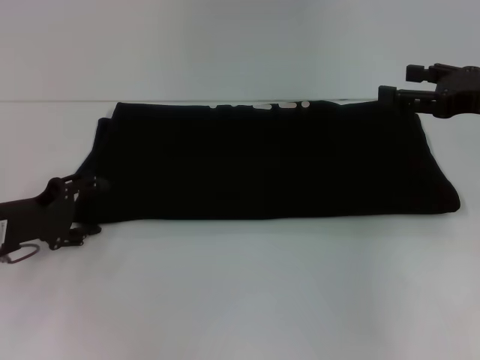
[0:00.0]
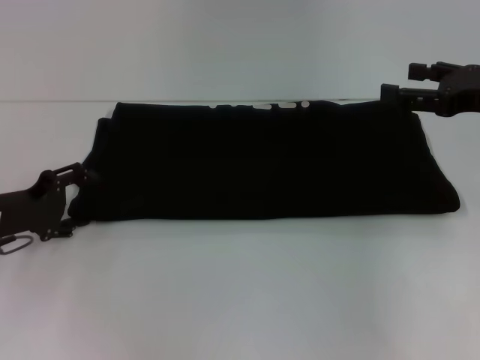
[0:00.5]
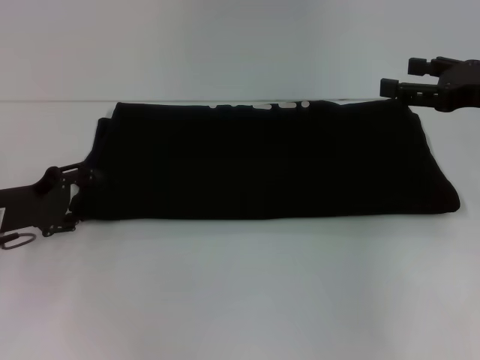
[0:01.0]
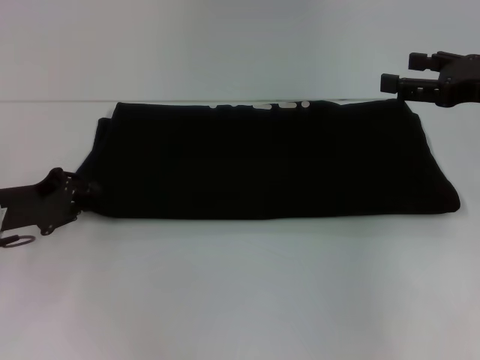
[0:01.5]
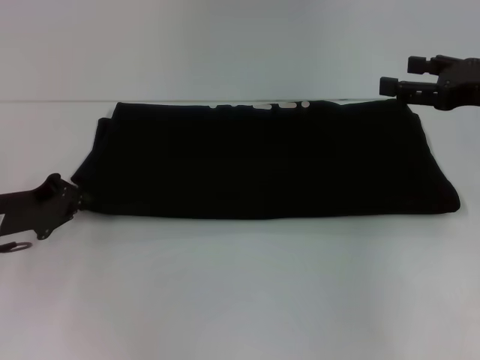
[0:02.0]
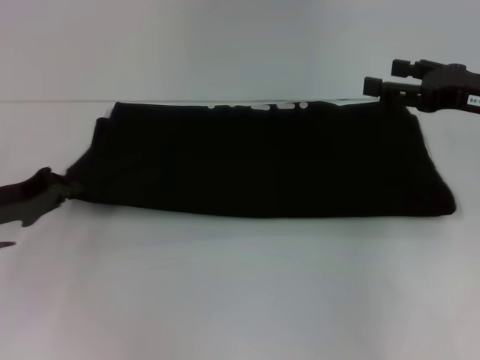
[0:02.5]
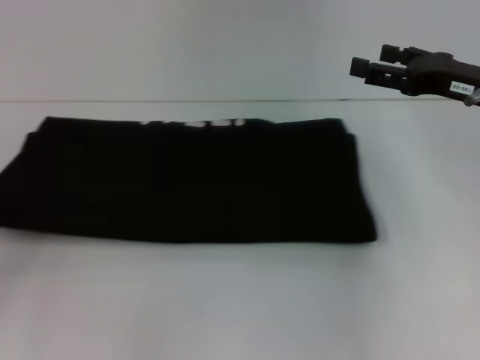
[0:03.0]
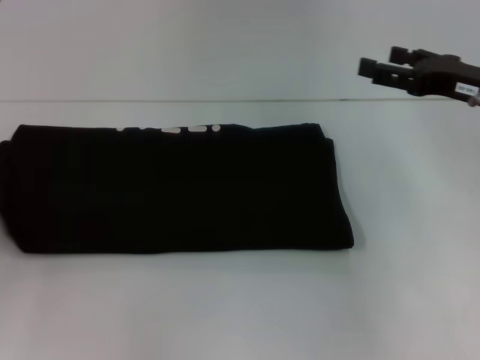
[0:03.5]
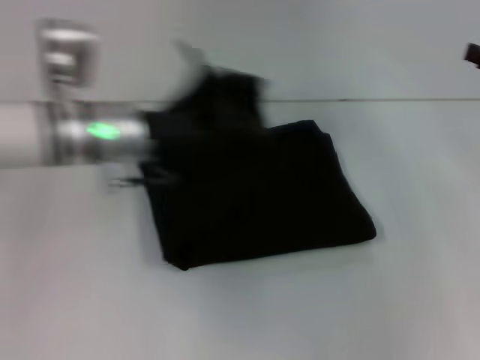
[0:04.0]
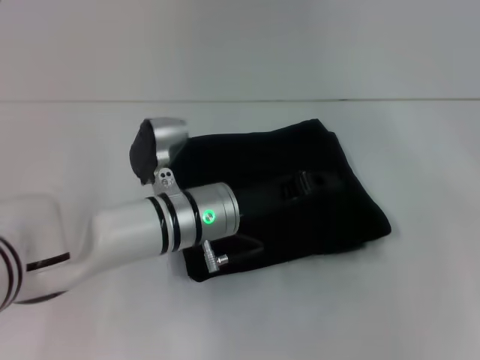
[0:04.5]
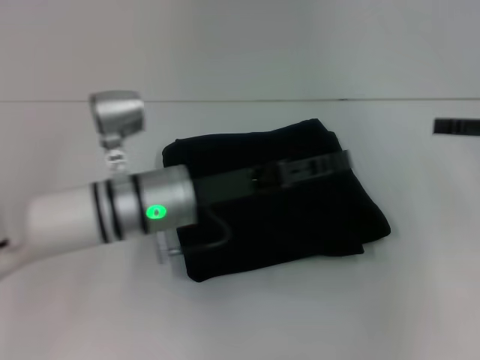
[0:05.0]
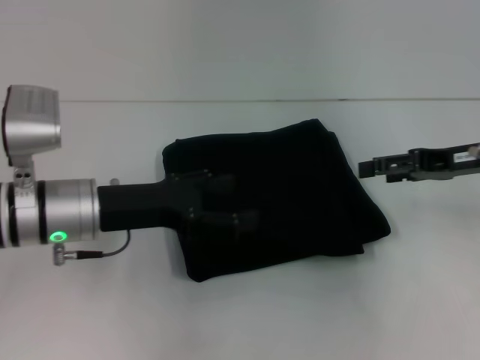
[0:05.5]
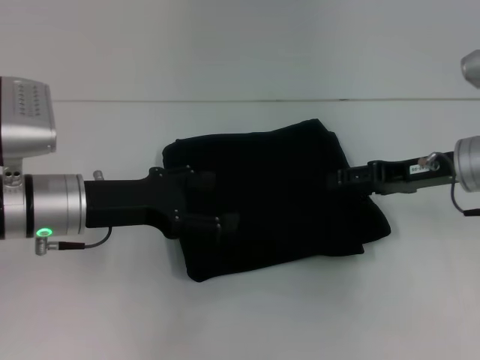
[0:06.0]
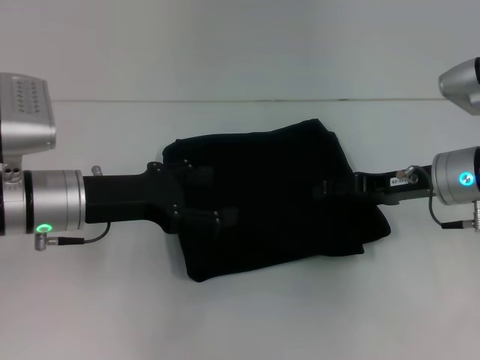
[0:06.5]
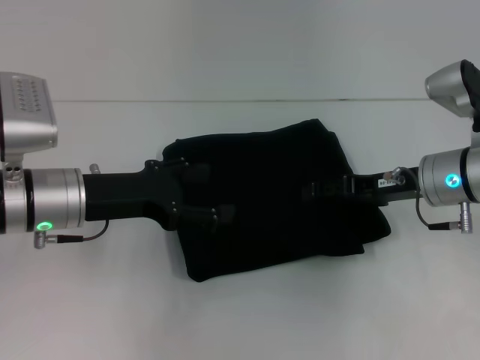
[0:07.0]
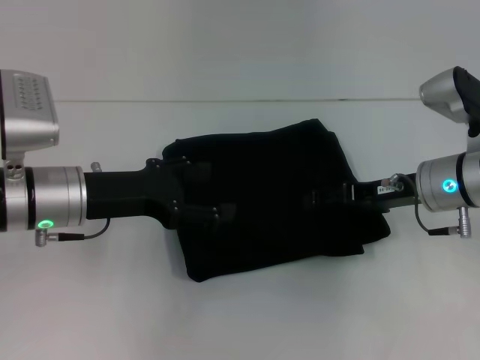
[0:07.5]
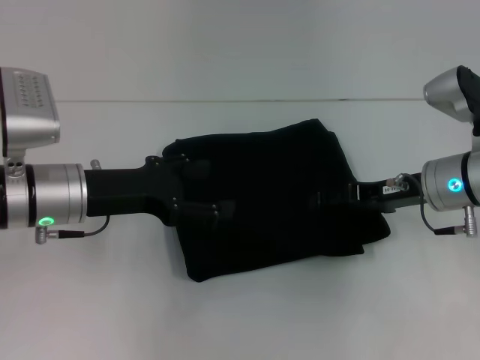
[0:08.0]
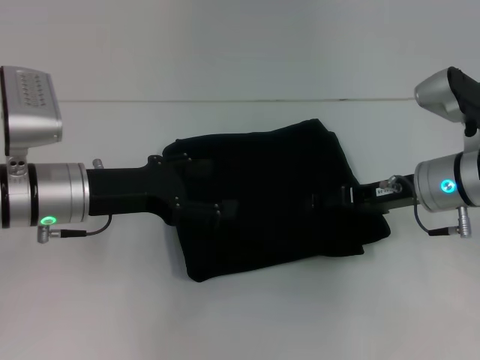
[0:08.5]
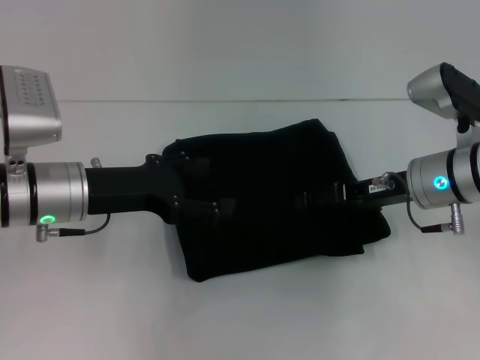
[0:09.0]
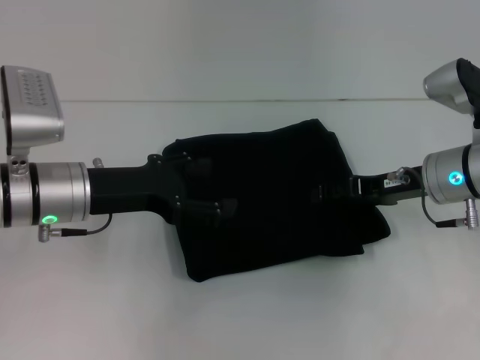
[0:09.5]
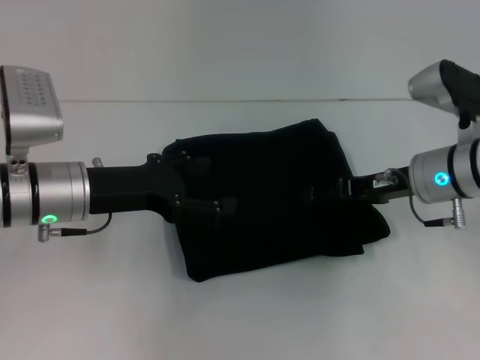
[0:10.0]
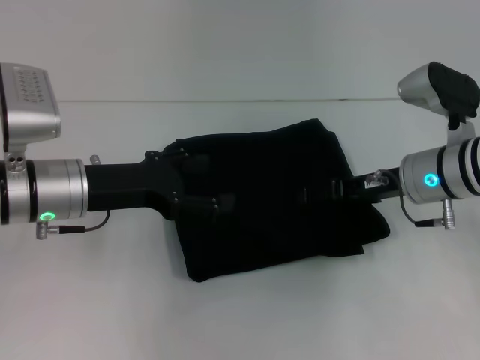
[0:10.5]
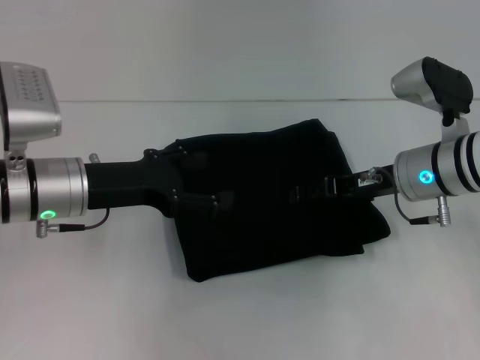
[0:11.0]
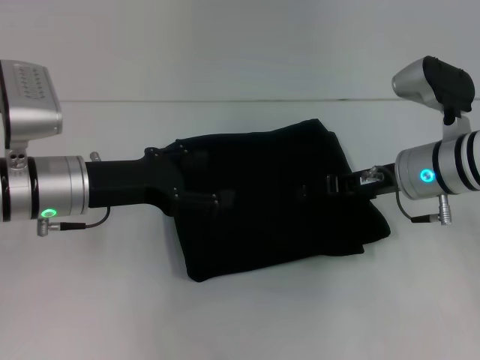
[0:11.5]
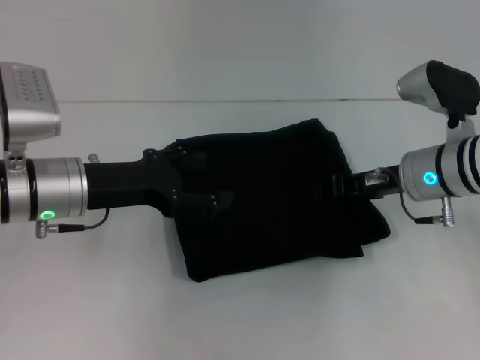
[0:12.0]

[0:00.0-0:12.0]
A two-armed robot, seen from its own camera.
Step, 0:00.0 to 0:04.5: Fold the clothes with your left hand.
0:00.0 to 0:02.0: The left gripper closes its fingers.
0:02.0 to 0:04.0: The right gripper is displaced to the right by approximately 5 cm. Meanwhile the left gripper heads to the right and upward, covering some 15 cm.
0:04.0 to 0:06.0: The right gripper shifts about 10 cm to the left. The left gripper goes approximately 10 cm backward and to the left, and opens.
0:06.0 to 0:10.0: The grippers move only a little.
0:10.0 to 0:12.0: The right gripper closes up.

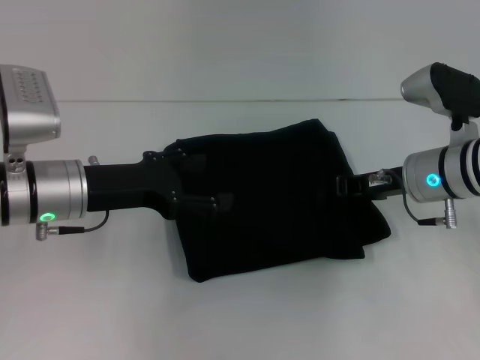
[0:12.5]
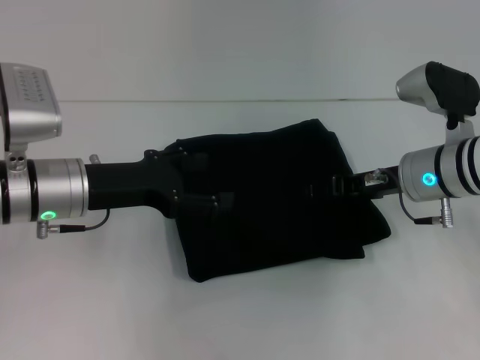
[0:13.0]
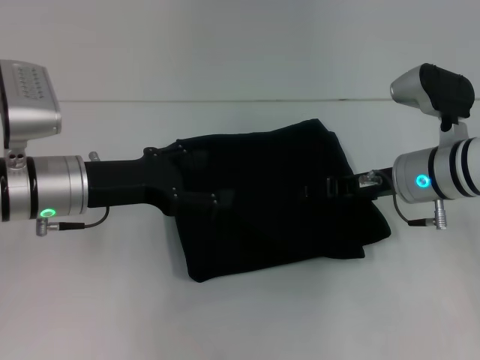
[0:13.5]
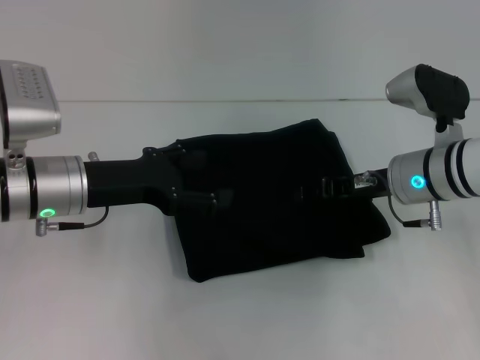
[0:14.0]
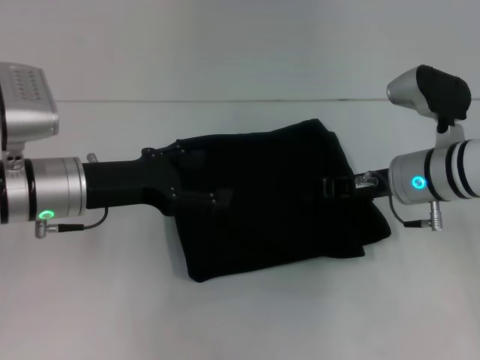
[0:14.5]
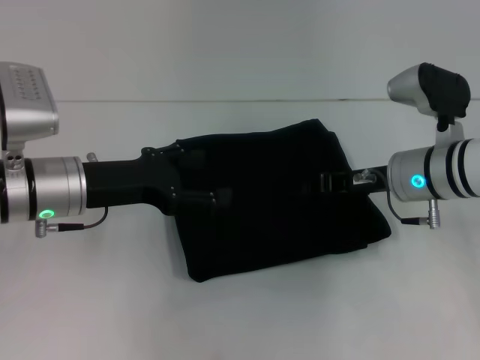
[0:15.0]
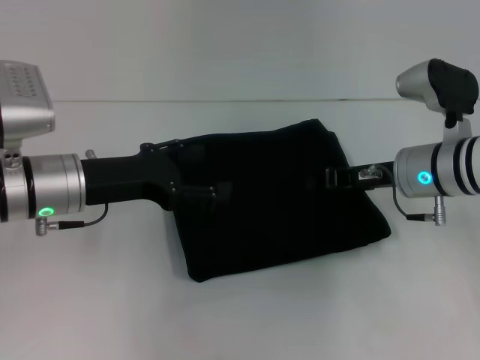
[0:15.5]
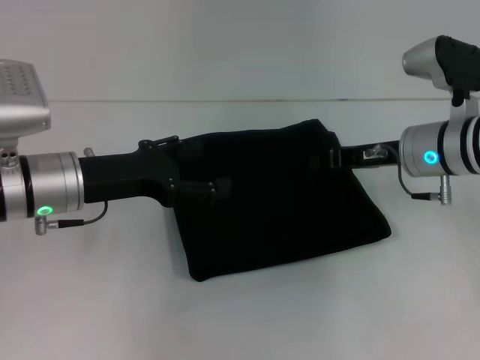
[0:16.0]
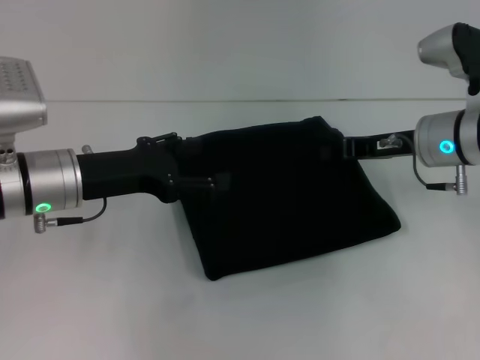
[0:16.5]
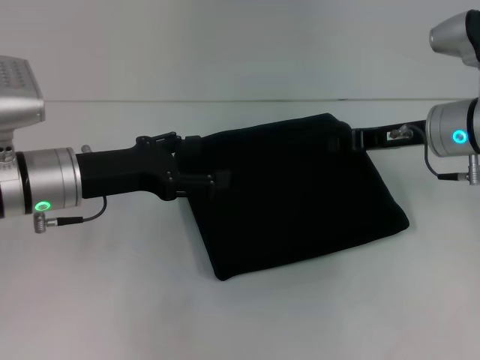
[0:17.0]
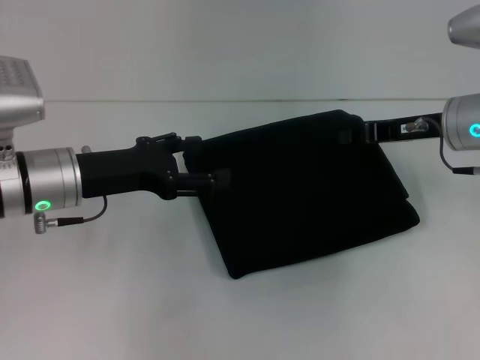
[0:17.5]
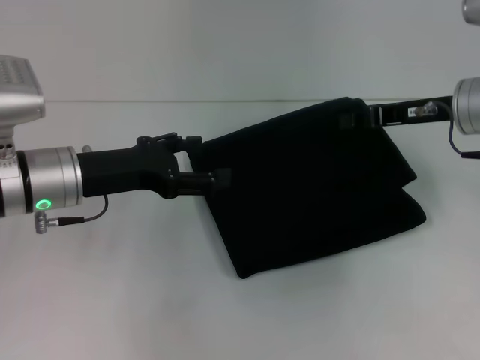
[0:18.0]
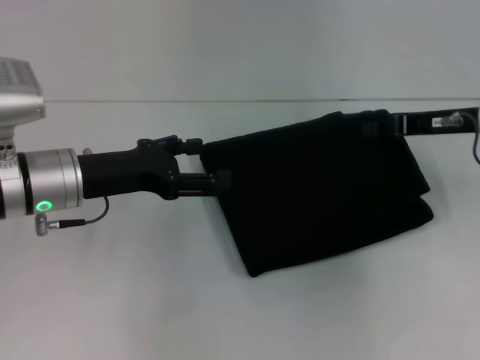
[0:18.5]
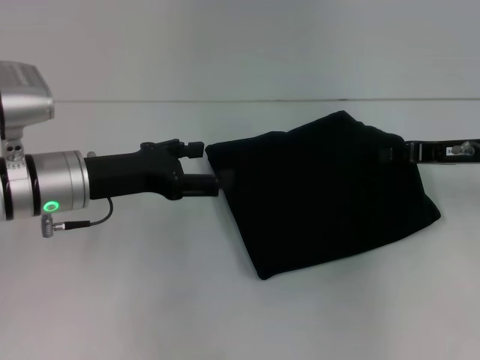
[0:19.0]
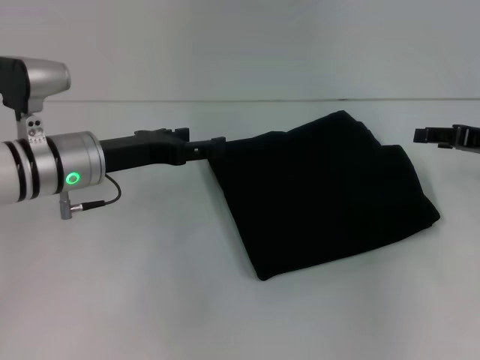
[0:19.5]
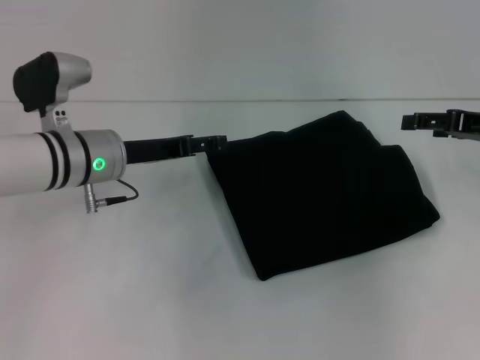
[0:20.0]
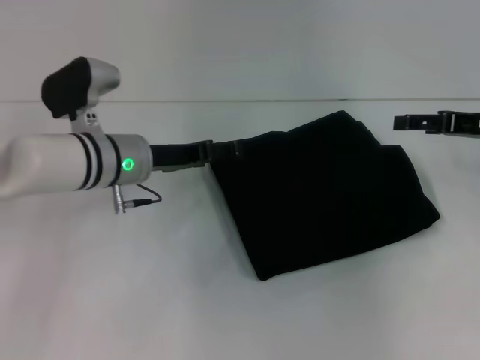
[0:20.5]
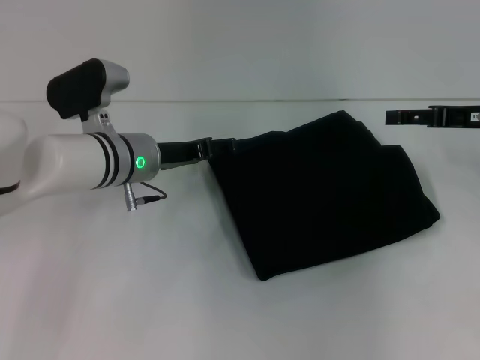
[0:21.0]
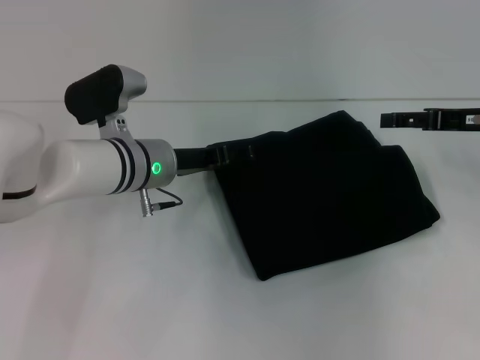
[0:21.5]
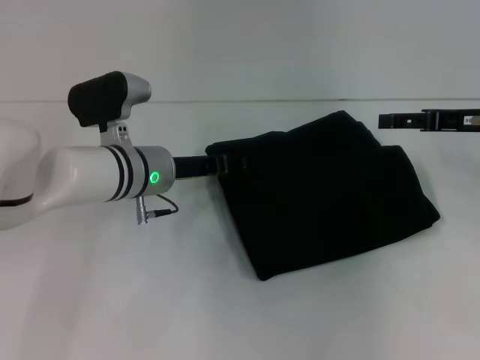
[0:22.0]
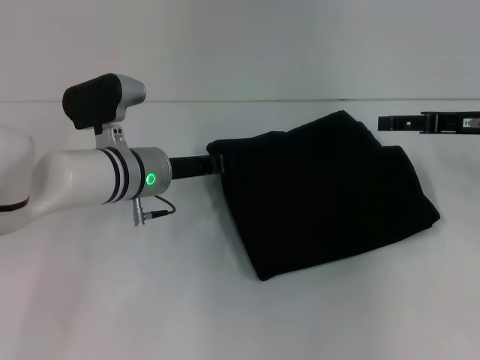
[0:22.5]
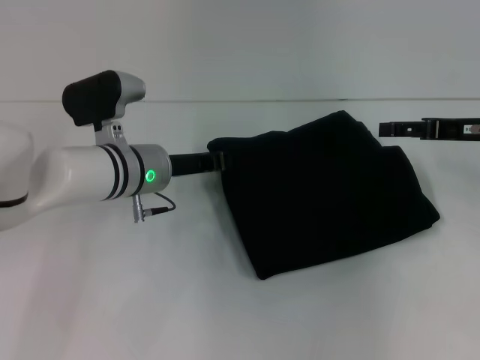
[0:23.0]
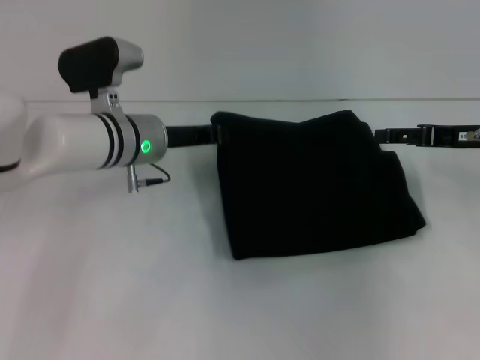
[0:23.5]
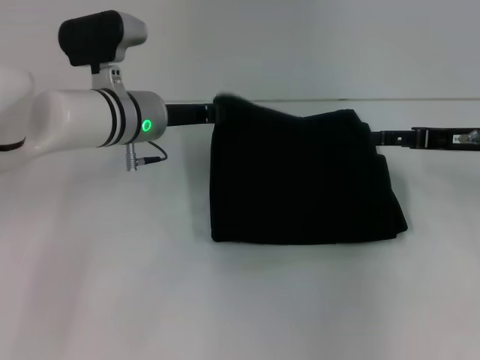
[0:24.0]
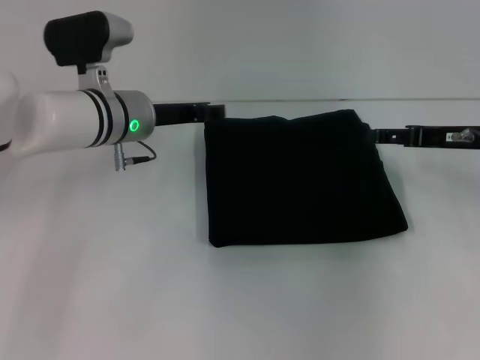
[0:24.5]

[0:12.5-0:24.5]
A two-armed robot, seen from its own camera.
0:12.5 to 0:14.5: The right gripper opens up.
0:14.5 to 0:16.5: The right gripper closes its fingers.
0:16.5 to 0:18.5: The right gripper ends up roughly 5 cm from where it was.
0:18.5 to 0:20.5: The right gripper opens its fingers, while the left gripper is displaced forward and to the right by roughly 10 cm.
0:20.5 to 0:22.5: The left gripper closes its fingers.
0:22.5 to 0:24.5: The left gripper changes place by roughly 5 cm.

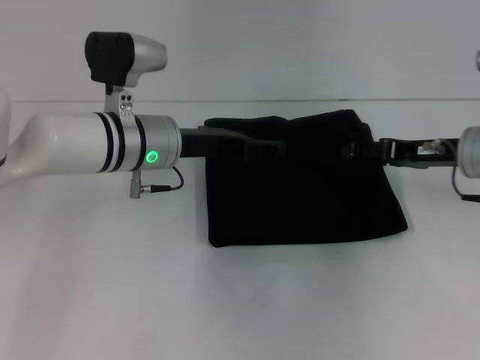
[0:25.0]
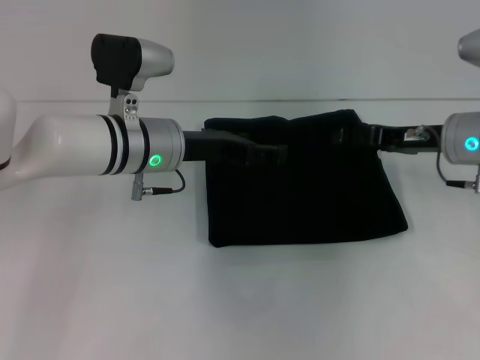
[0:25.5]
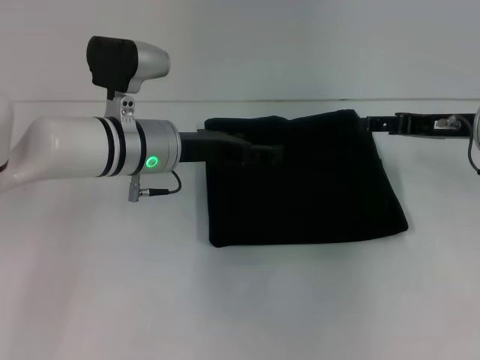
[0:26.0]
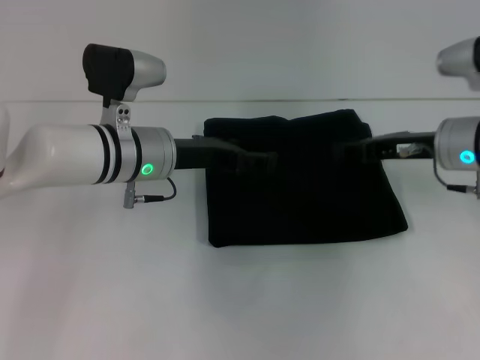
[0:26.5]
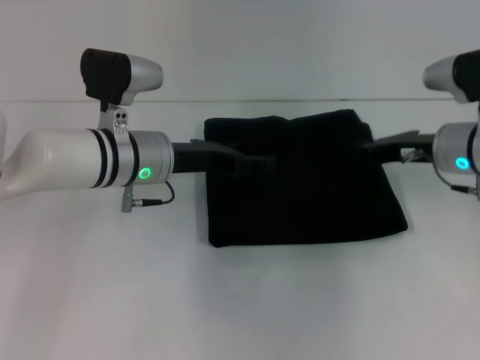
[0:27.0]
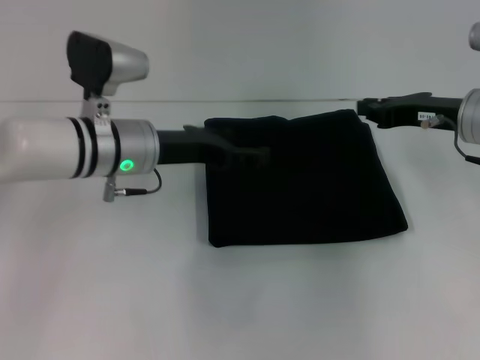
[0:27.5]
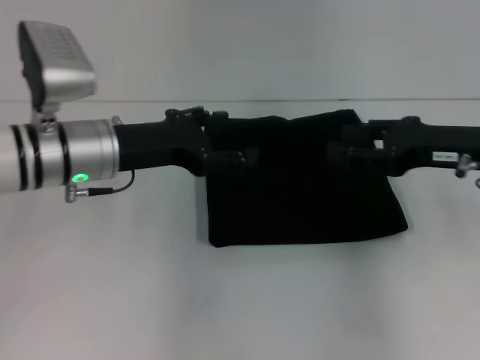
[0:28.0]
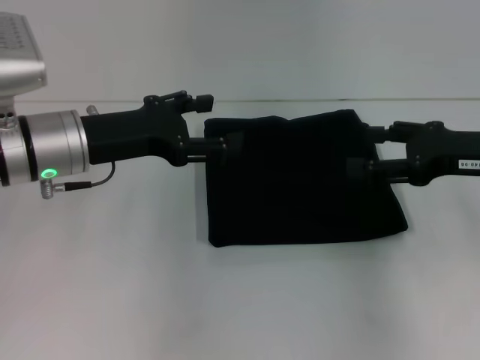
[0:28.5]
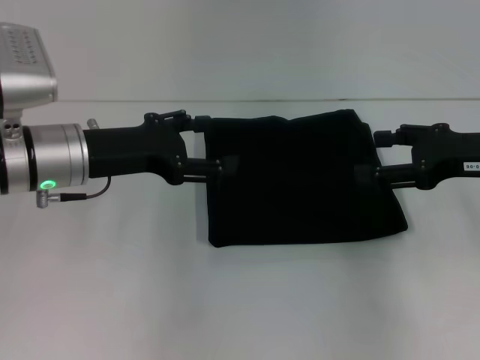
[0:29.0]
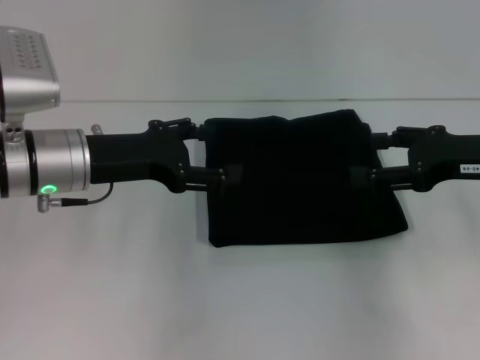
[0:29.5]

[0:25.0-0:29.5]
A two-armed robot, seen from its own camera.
0:25.0 to 0:27.0: The right gripper closes up.
0:27.0 to 0:29.5: The right gripper shifts approximately 10 cm backward and upward, and opens. The left gripper is displaced to the left by about 5 cm.
